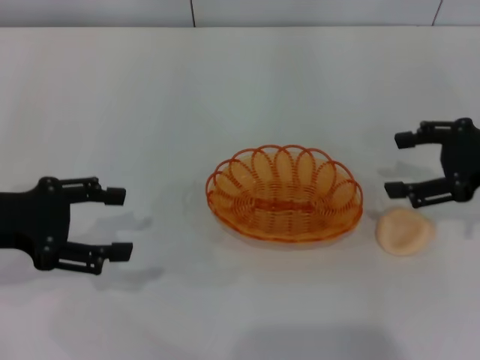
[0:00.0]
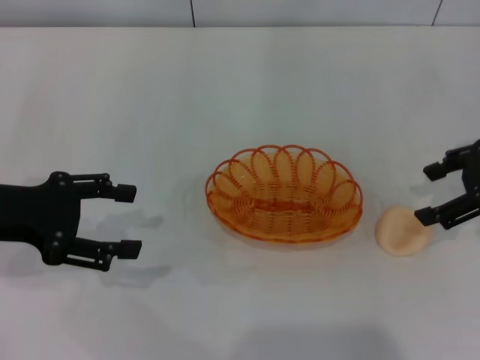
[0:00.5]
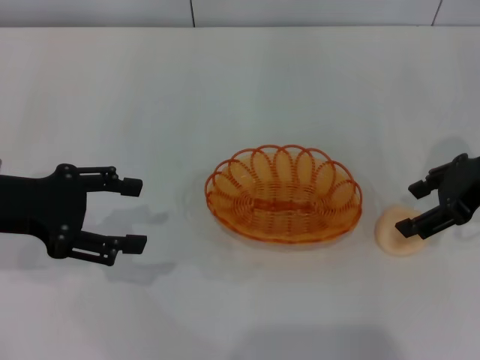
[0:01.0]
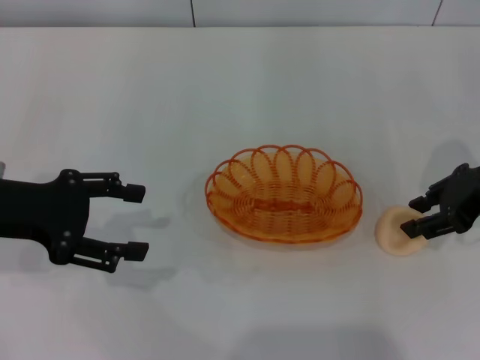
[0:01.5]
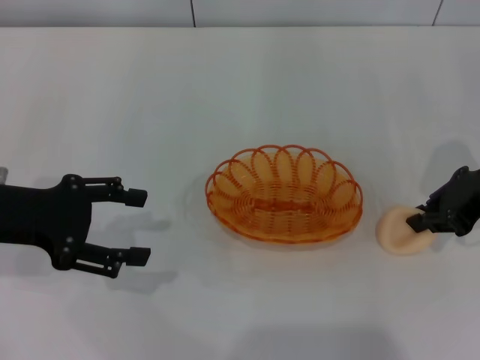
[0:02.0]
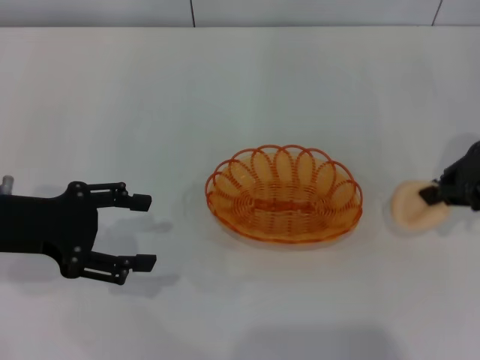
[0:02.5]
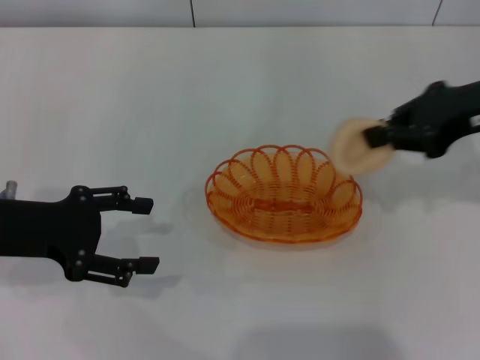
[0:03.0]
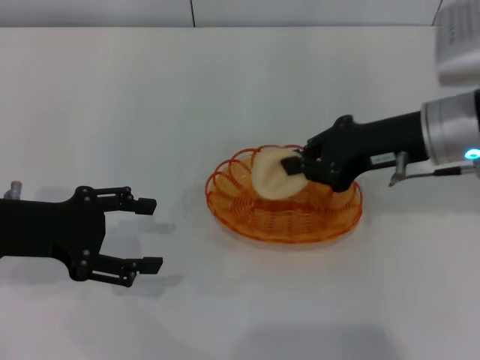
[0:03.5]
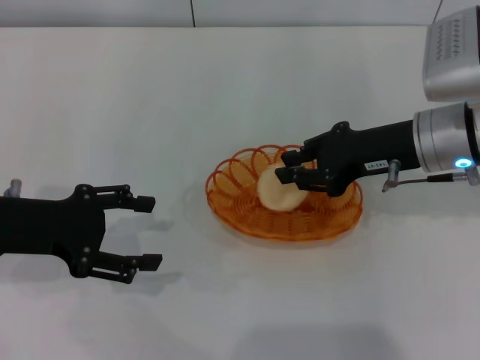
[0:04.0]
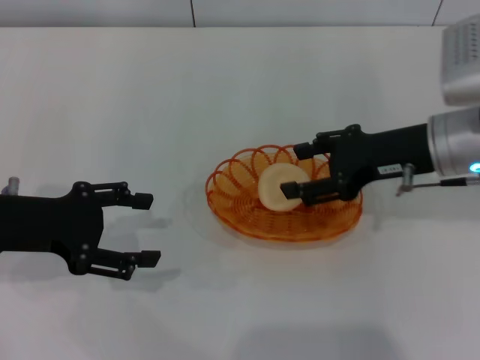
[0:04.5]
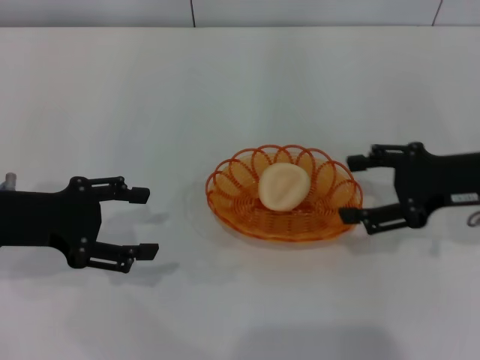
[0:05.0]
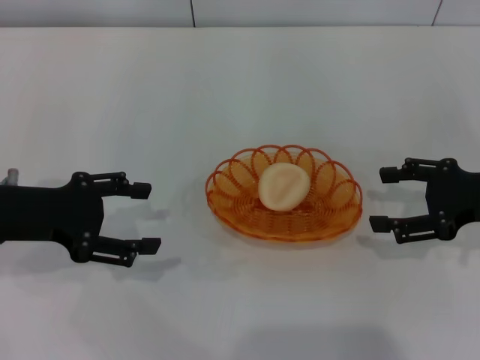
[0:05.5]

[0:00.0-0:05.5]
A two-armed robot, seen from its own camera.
Step, 0:00.0 to 0:02.5: Pick up the egg yolk pastry with the right gripper.
Step, 0:03.0 to 0:04.0: Place the egg yolk pastry into the basket with the right gripper.
0:00.0 to 0:02.0: The right gripper closes its fingers.
0:02.0 to 0:03.5: The right gripper shifts about 10 cm to the left.
0:03.5 to 0:05.5: The right gripper heads to the right, covering approximately 10 cm, and opens.

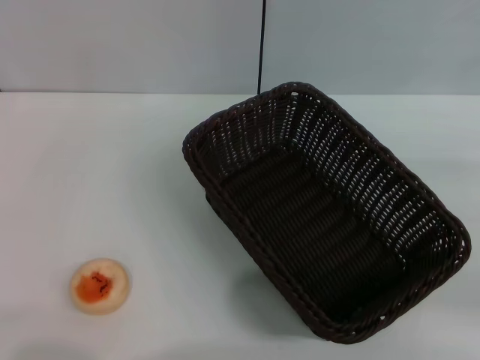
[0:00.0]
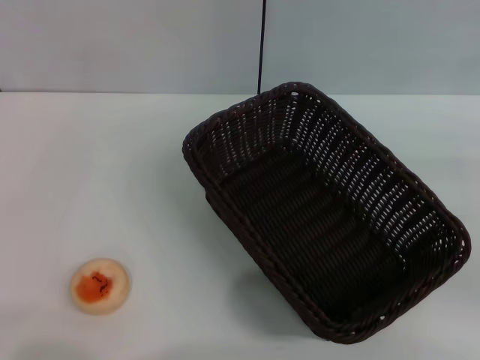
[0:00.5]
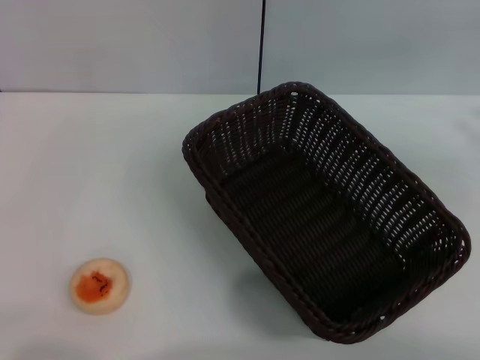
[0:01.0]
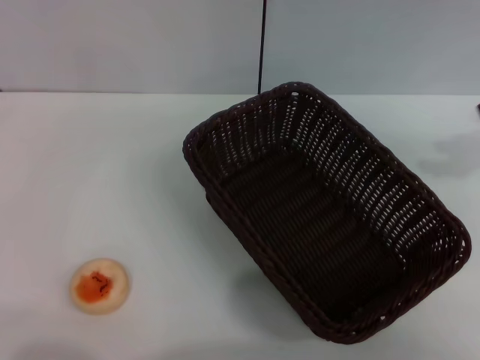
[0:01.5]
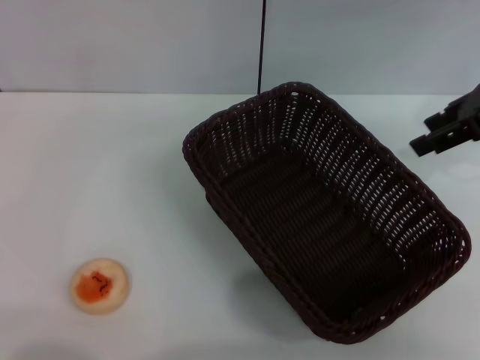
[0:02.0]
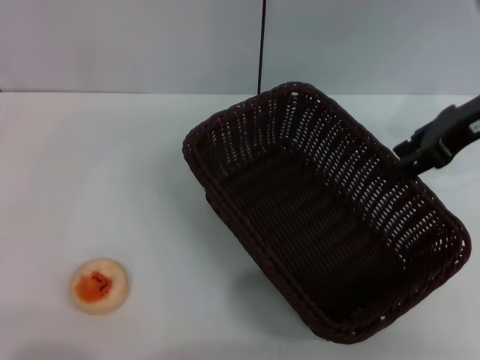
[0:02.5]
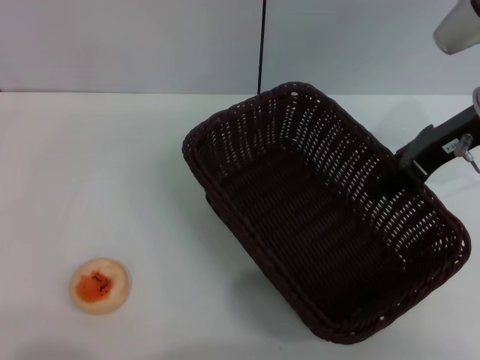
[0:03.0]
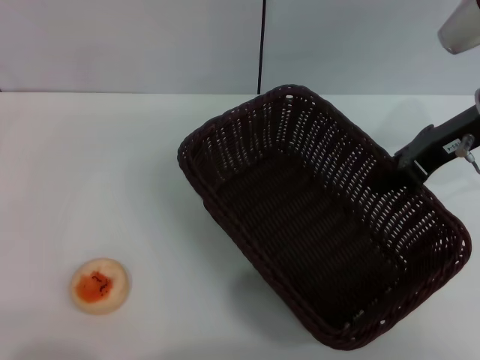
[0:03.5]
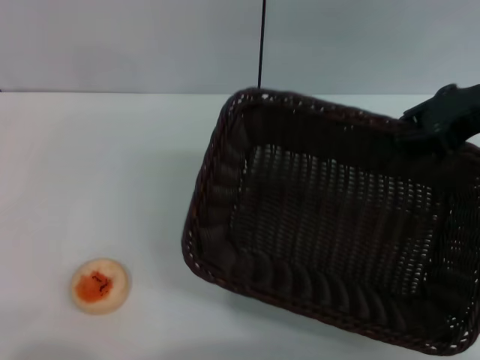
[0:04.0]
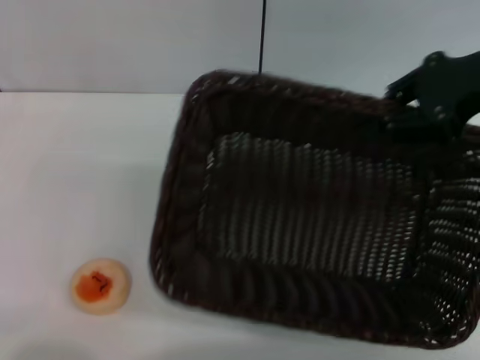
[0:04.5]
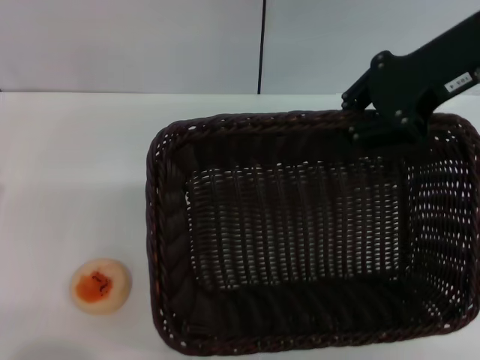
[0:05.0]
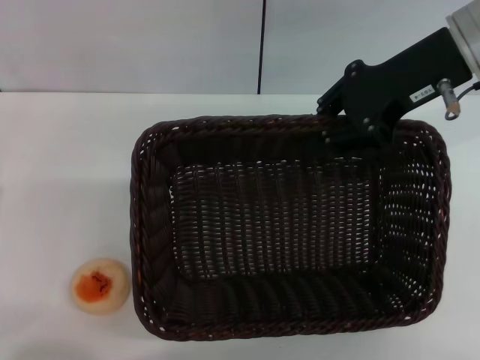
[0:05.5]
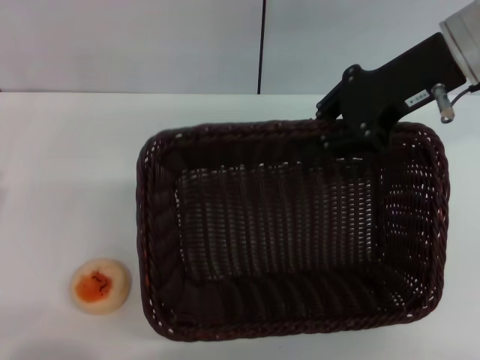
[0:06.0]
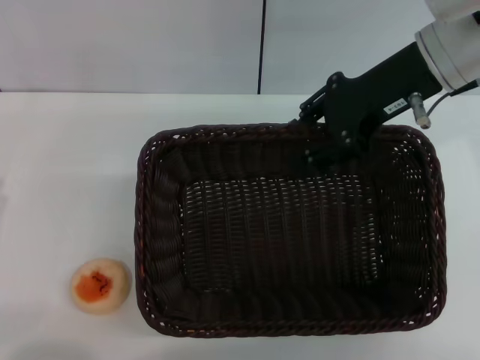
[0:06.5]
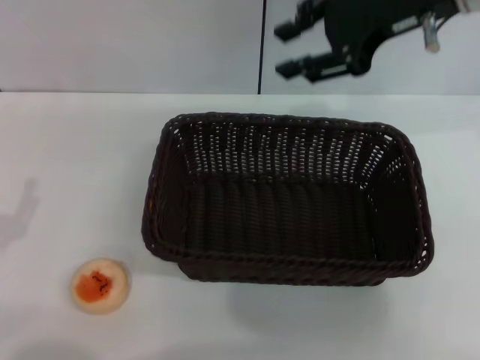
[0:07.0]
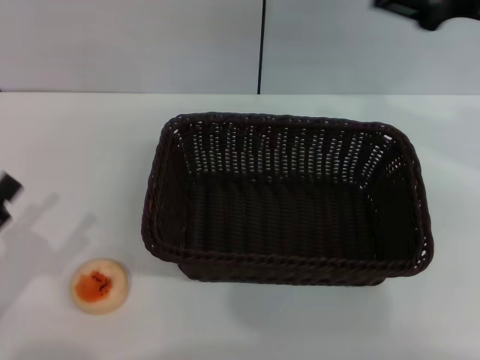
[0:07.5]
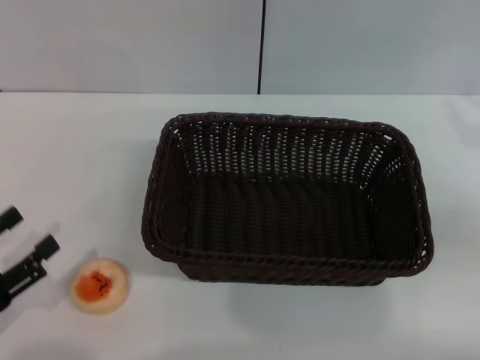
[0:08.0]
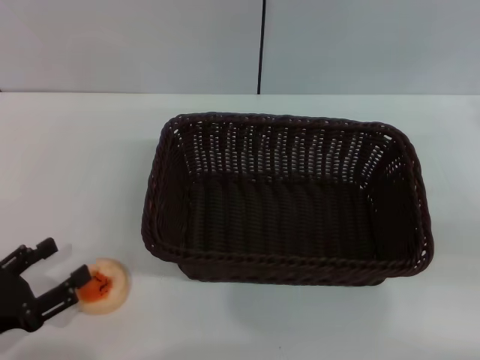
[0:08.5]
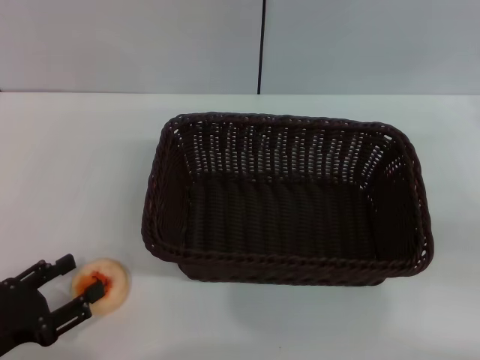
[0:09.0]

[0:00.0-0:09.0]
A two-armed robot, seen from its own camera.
Step, 0:00.0 to 0:06.5: Move the basket to the center of view with the right gripper.
0:00.0 to 0:02.0: The right gripper moves forward, to the left and upward, about 20 cm.
0:02.0 to 0:04.5: The right gripper moves about 5 cm downward and comes back, and closes.
0:04.5 to 0:07.0: The right gripper travels to the left by some 5 cm, and opens up.
0:07.0 to 0:09.0: The right gripper travels to the right, downward and backward by some 30 cm.

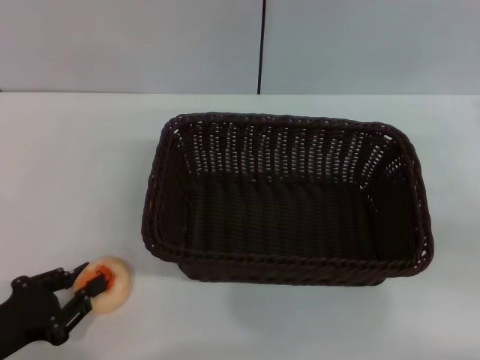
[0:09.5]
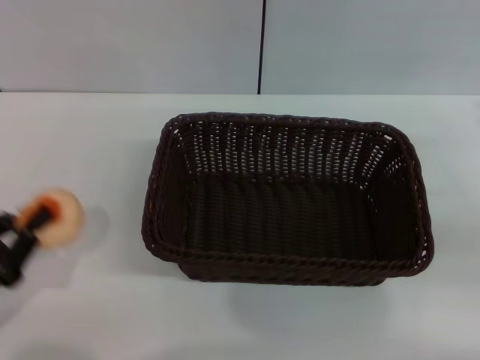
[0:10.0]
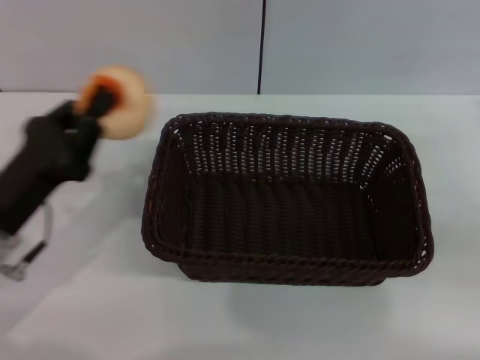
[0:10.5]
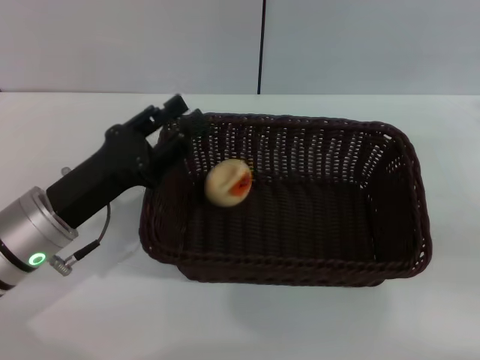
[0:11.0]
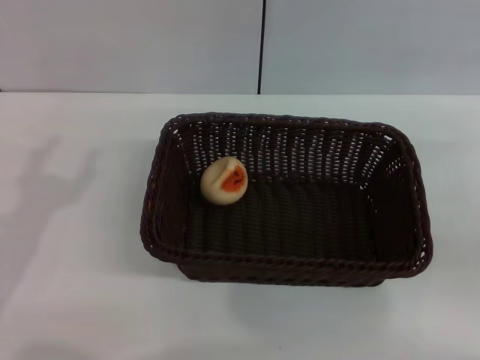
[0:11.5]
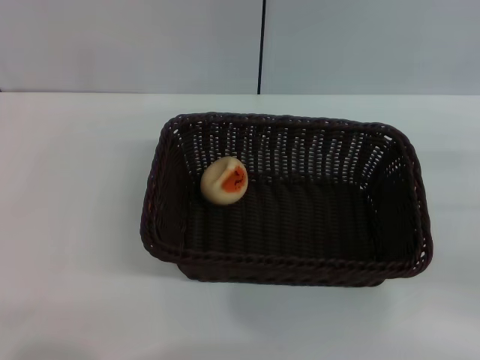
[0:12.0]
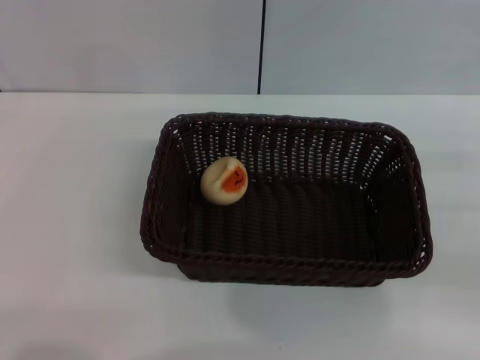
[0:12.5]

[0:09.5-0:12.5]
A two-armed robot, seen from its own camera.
Step, 0:10.5 to 0:11.0: Place the egg yolk pastry into the basket with the left gripper.
0:09.5 to 0:11.0: The left gripper shifts roughly 15 cm forward, to the right and upward.
0:11.0 to 0:12.5: The left gripper goes approximately 15 cm to the left and backward, and opens up.

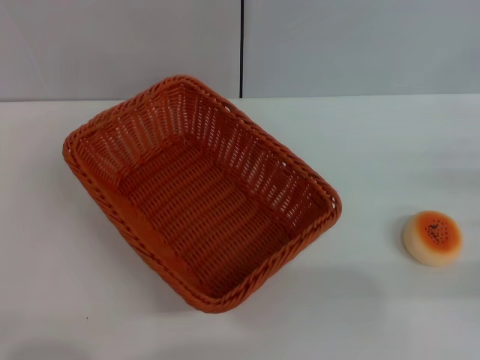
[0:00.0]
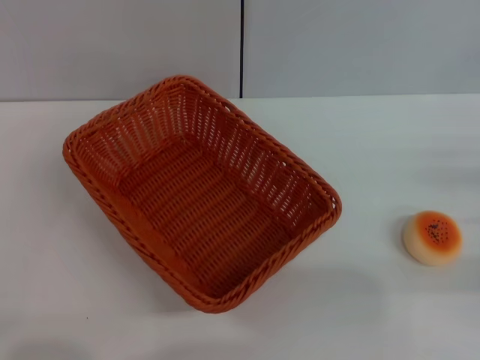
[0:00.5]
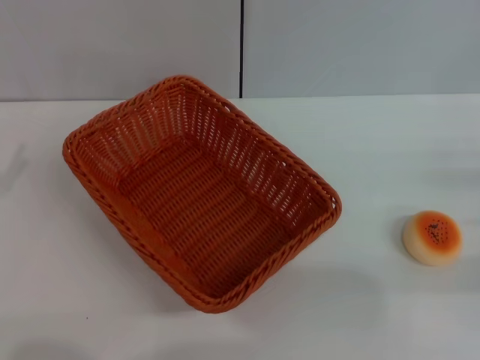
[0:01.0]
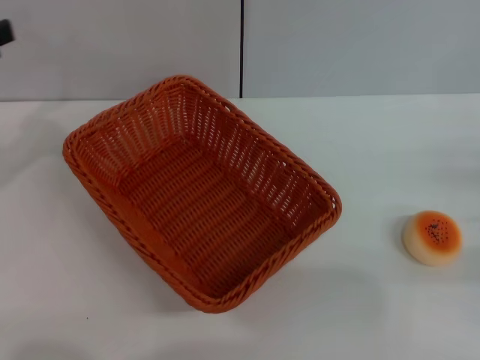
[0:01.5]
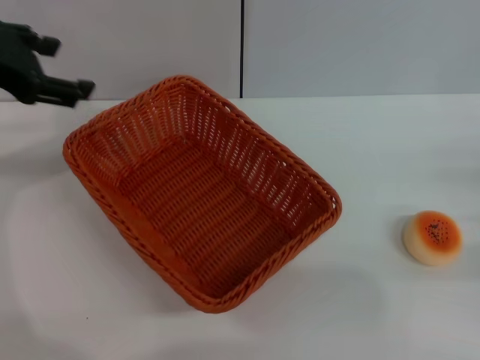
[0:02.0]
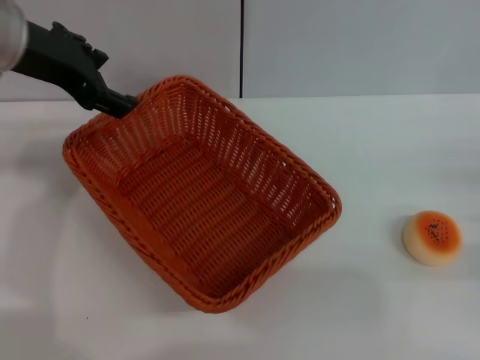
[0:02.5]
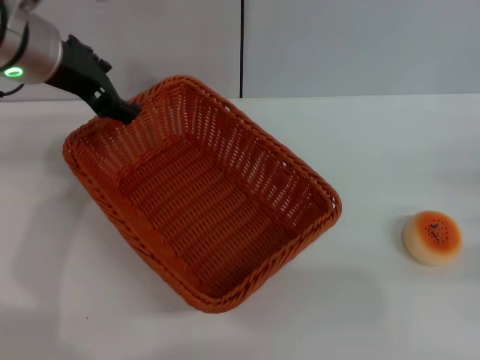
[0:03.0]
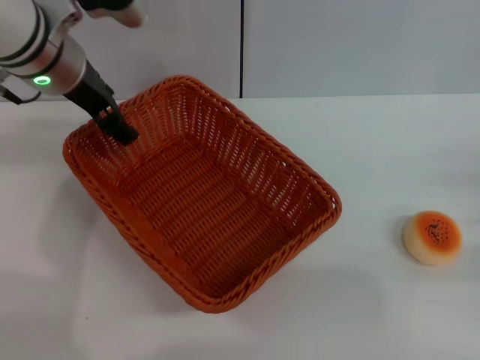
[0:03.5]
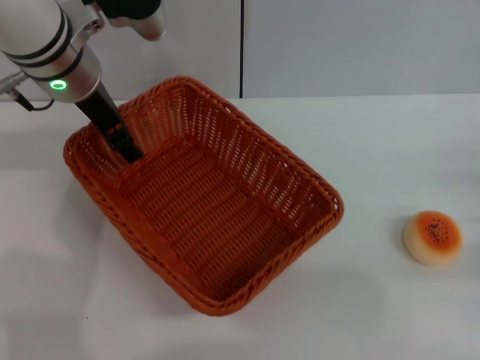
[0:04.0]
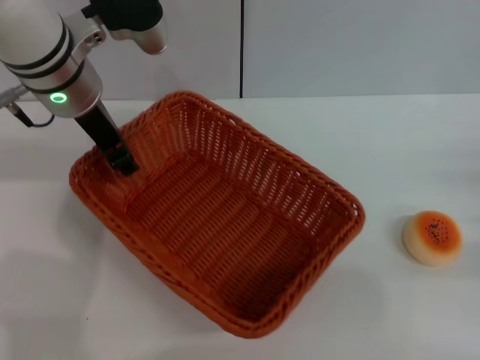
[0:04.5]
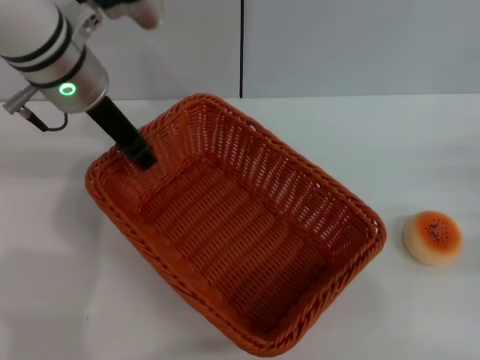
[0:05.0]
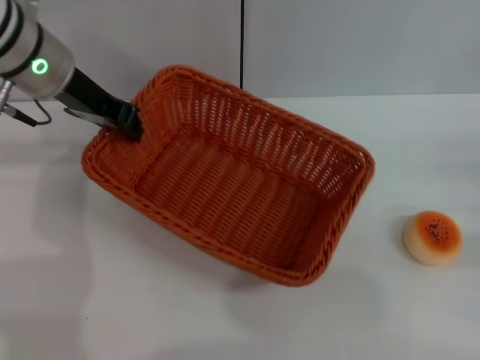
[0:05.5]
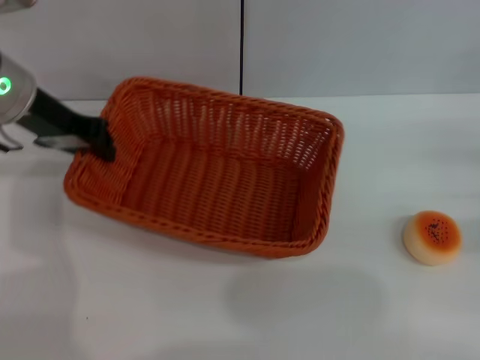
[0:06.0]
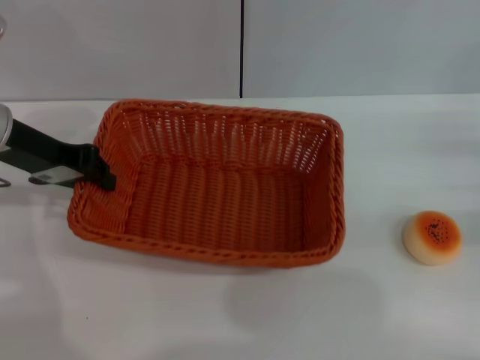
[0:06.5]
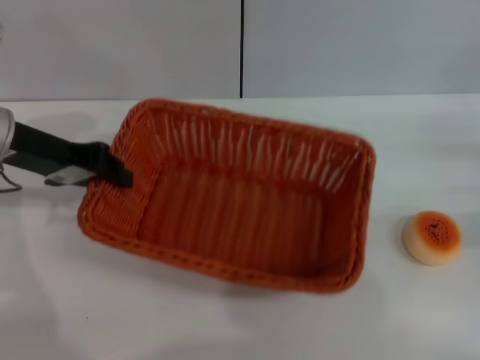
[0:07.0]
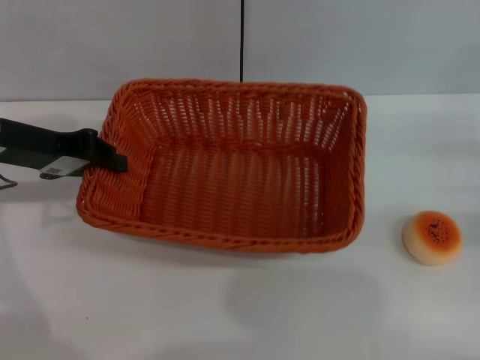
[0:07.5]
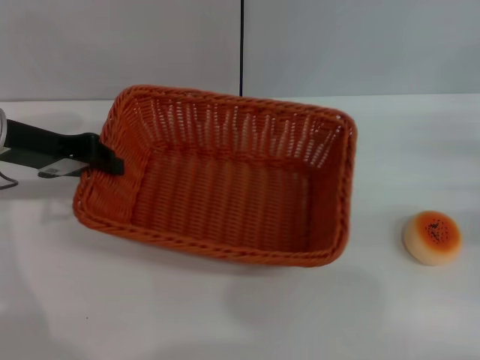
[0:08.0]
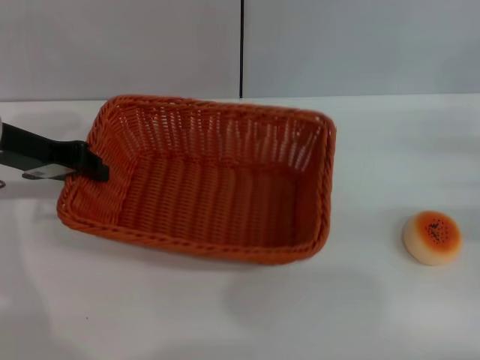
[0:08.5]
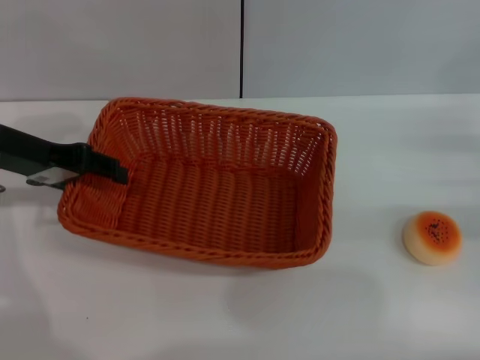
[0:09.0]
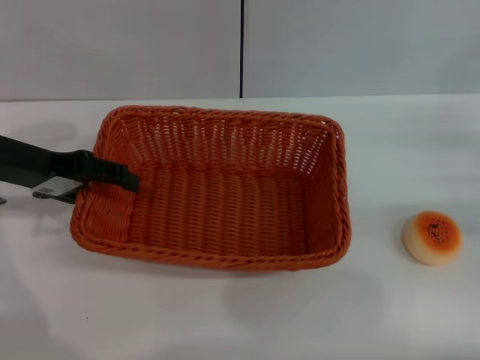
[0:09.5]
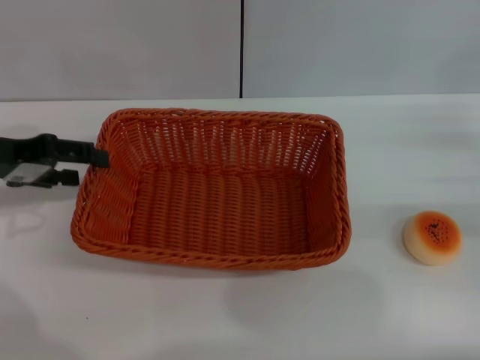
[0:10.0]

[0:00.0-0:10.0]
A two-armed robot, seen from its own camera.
0:00.0 to 0:02.0: The left gripper travels upward and forward by approximately 30 cm.
0:02.0 to 0:04.0: The left gripper is displaced to the right, forward and downward by approximately 15 cm.
0:04.0 to 0:06.0: The left gripper shifts some 5 cm to the left, and closes up.
0:06.0 to 0:08.0: The left gripper ends up roughly 5 cm from where it was.
0:08.0 to 0:10.0: The left gripper opens its fingers.
